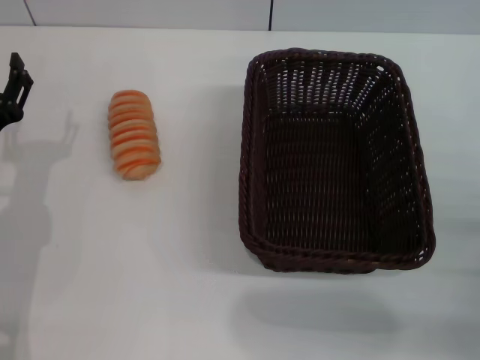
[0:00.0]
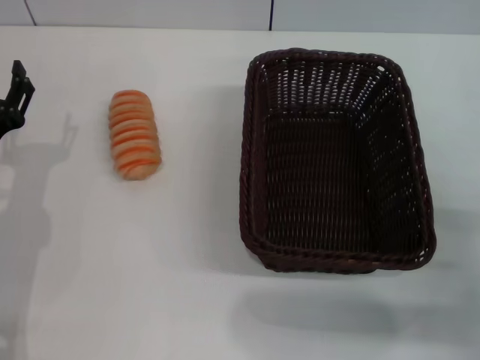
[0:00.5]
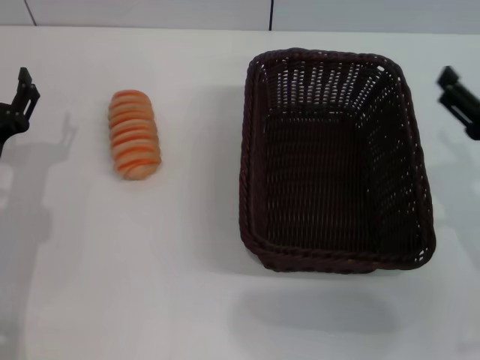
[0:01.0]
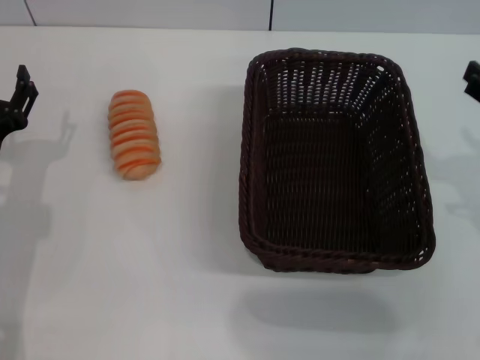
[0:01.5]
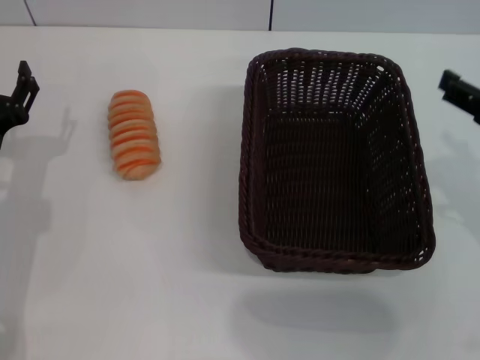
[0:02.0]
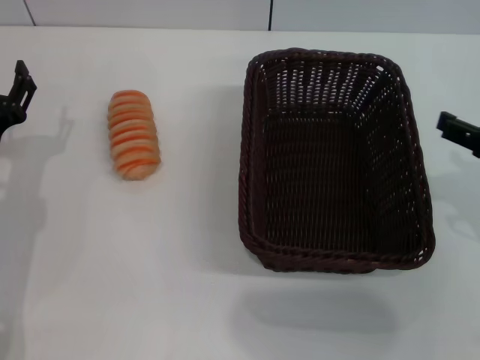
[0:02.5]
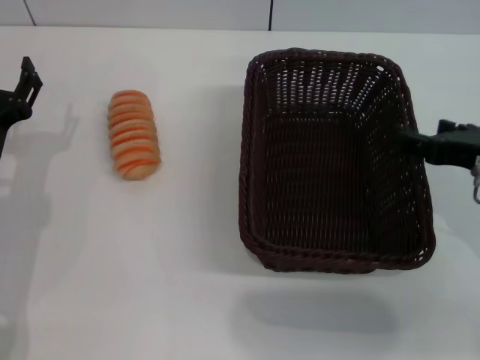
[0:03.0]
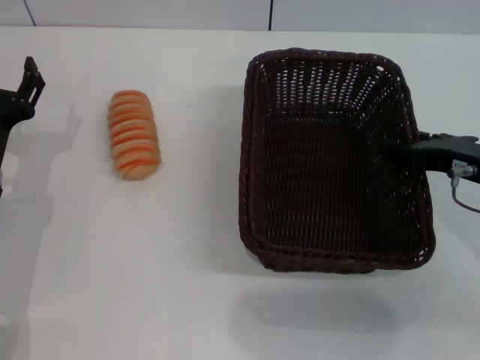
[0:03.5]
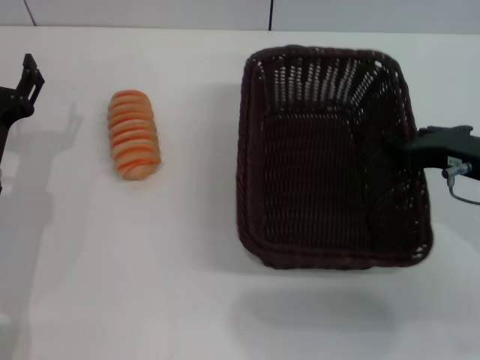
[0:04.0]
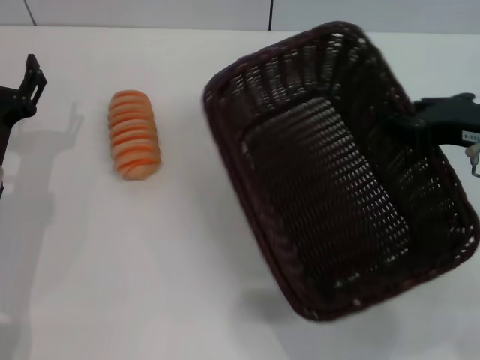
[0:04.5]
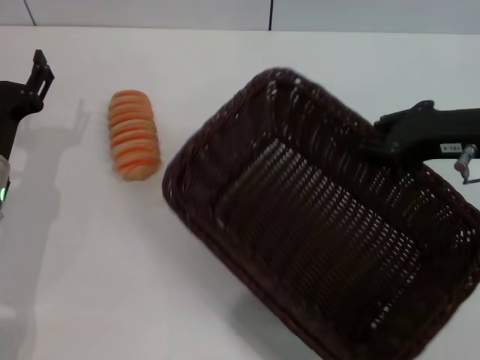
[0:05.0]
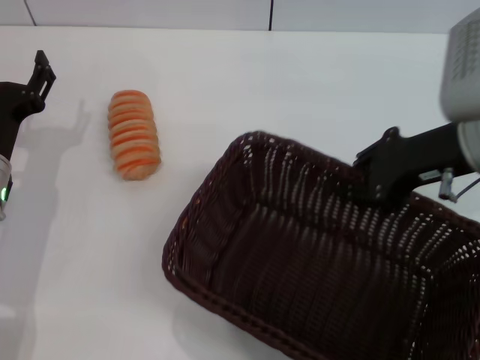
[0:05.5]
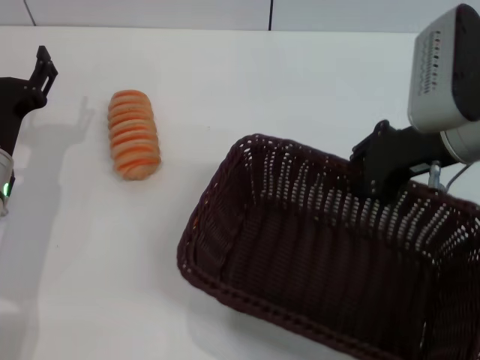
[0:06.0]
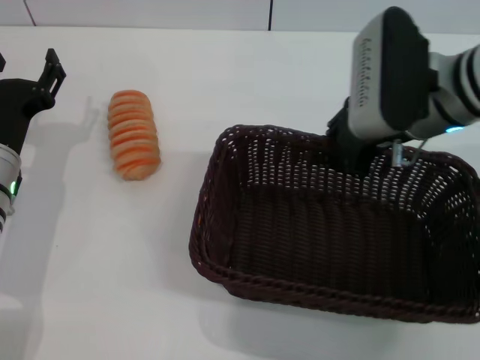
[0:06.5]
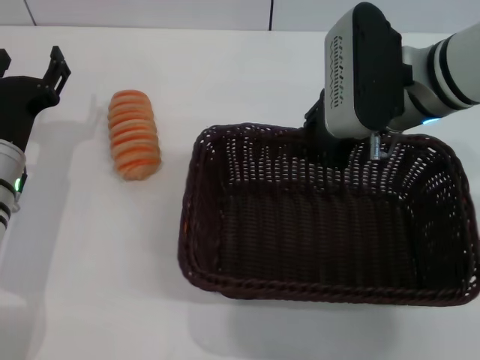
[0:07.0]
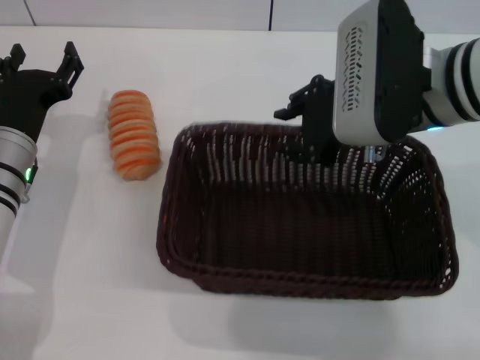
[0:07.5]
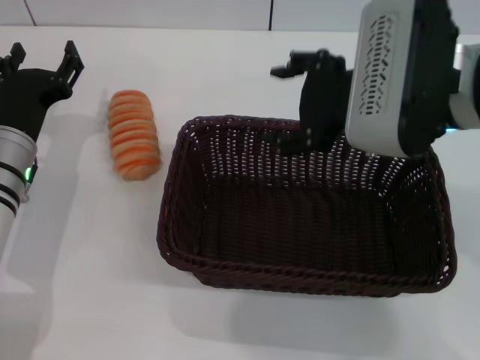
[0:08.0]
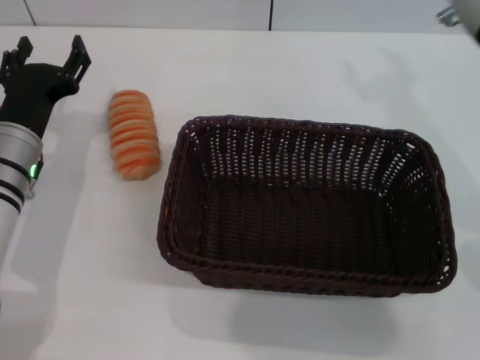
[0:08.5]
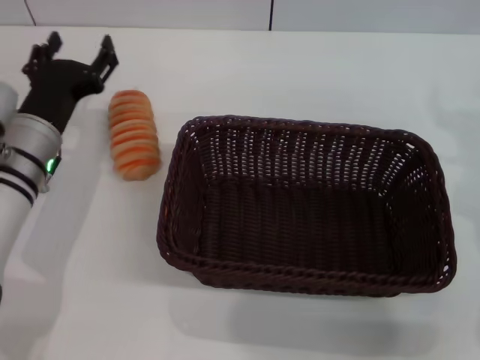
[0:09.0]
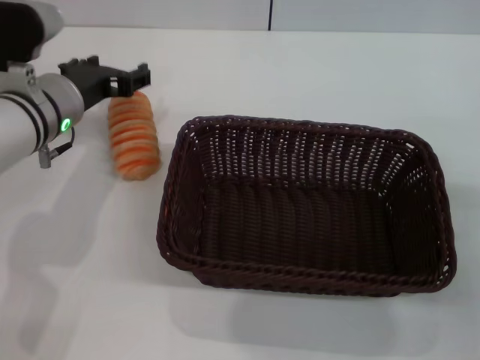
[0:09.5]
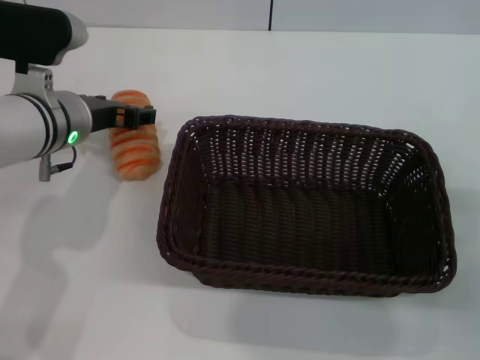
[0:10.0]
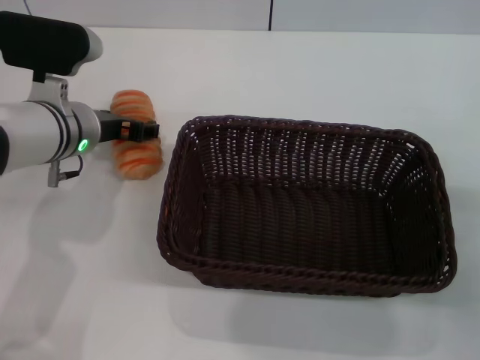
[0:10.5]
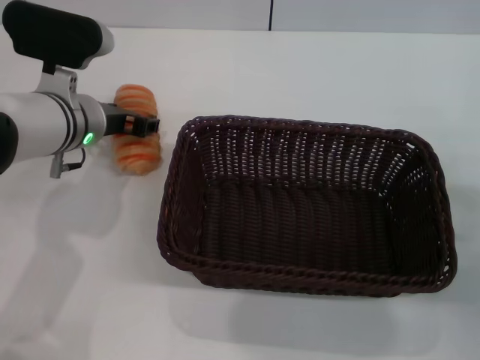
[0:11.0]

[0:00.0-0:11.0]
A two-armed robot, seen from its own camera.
Step, 0:00.0 to 0:04.5: Pick up the dark basket with the right gripper.
Step, 0:05.0 to 0:08.0: Place the dark basket in the center of view with the right gripper.
0:00.0 to 0:02.0: The right gripper heads upward and forward, covering about 15 cm.
0:02.0 to 0:03.5: The right gripper is displaced downward and forward by roughly 10 cm.
0:03.5 to 0:05.5: The right gripper ends up some 5 cm from where it was, and closes up.
0:05.5 to 0:07.5: The right gripper travels to the left by about 5 cm.
0:07.5 to 0:09.0: The right gripper shifts some 15 cm to the right, downward and backward, and opens its fingers.
0:09.0 to 0:11.0: The left gripper moves roughly 10 cm, while the right gripper goes roughly 10 cm downward and backward.

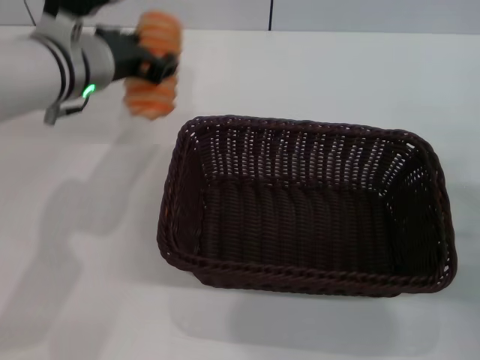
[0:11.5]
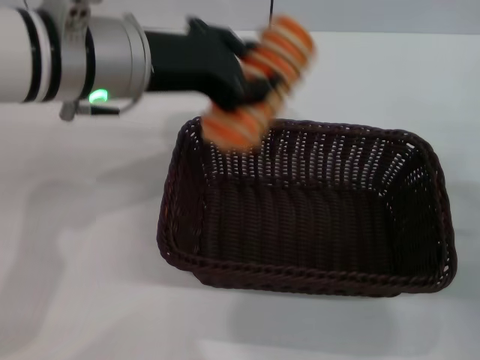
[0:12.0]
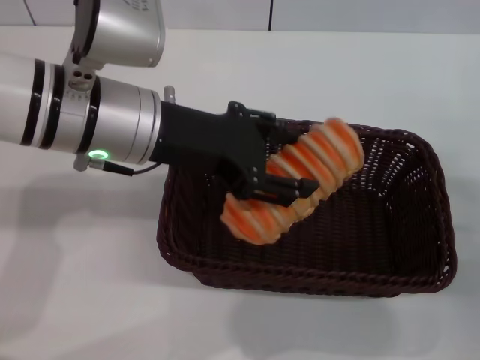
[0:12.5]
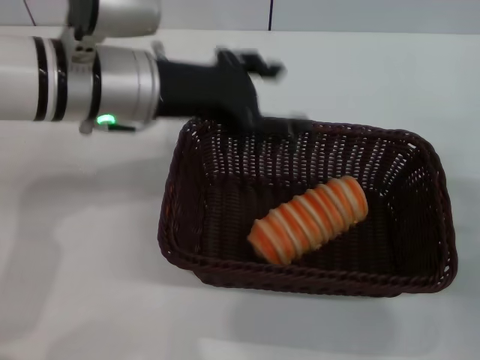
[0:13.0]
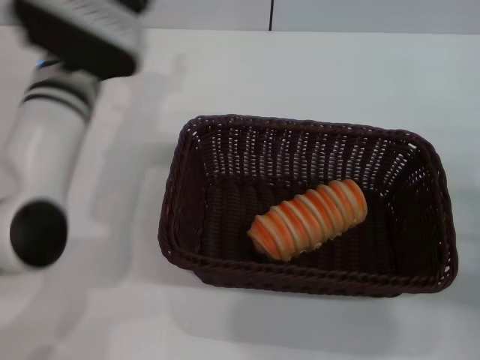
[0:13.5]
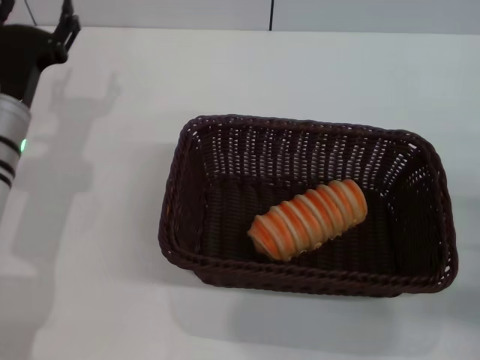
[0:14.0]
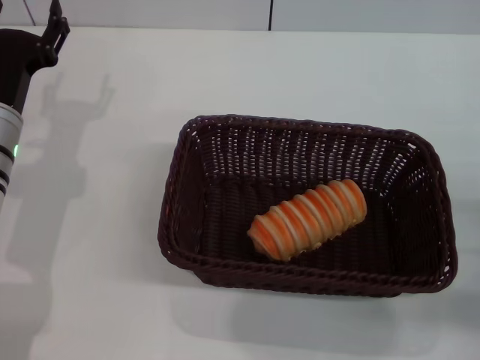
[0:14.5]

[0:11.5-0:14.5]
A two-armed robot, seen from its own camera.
Step, 0:12.0 to 0:14.0: Place the long bread into the dark basket with the left gripper.
0:11.5 to 0:13.0: The left gripper opens.
0:13.0 to 0:14.5: The left gripper shifts approximately 15 cm downward and to the left.
